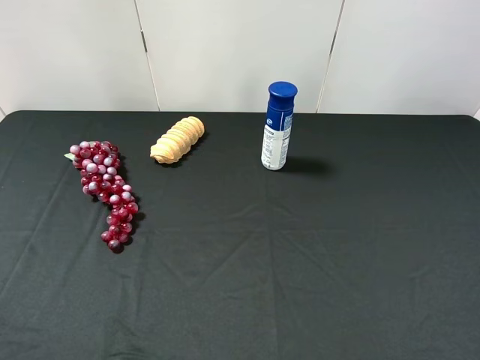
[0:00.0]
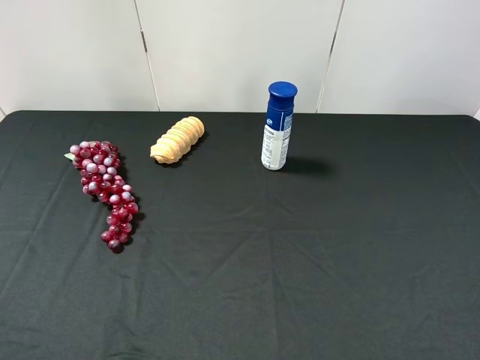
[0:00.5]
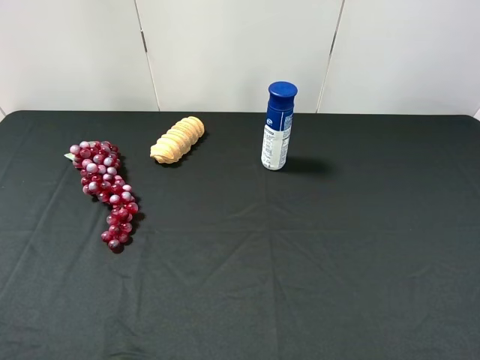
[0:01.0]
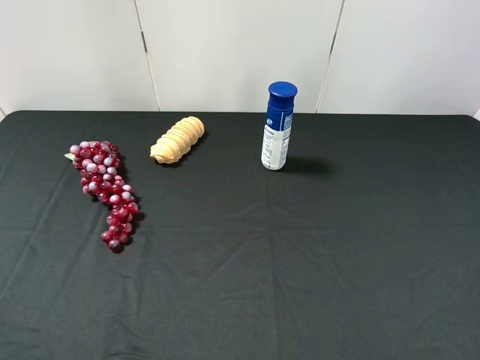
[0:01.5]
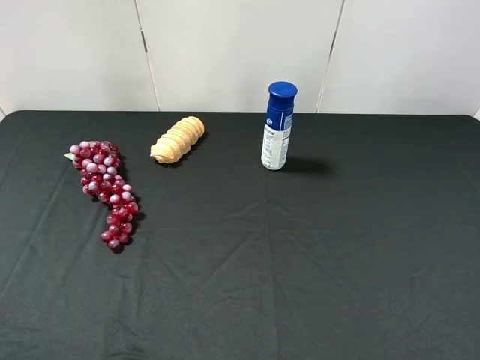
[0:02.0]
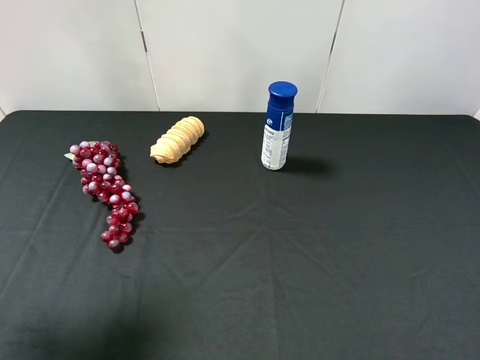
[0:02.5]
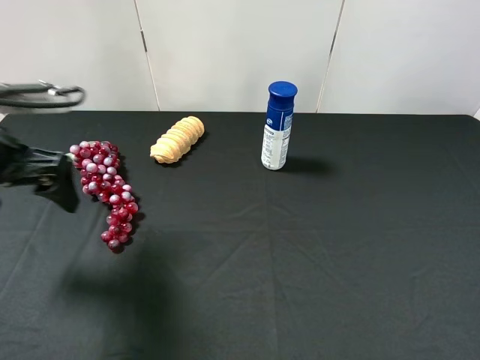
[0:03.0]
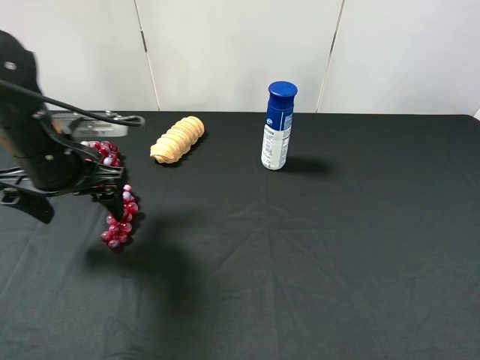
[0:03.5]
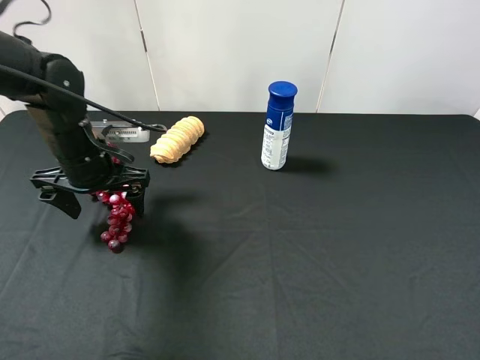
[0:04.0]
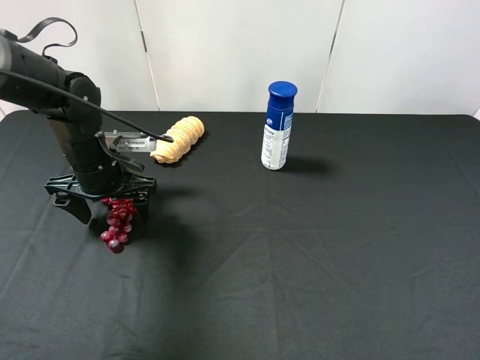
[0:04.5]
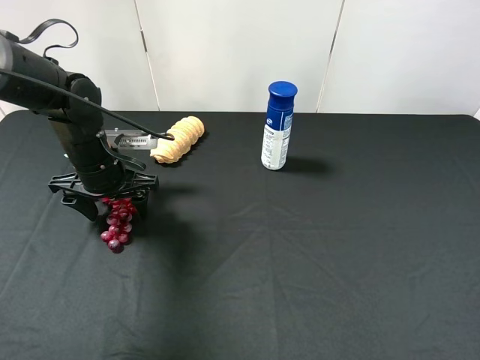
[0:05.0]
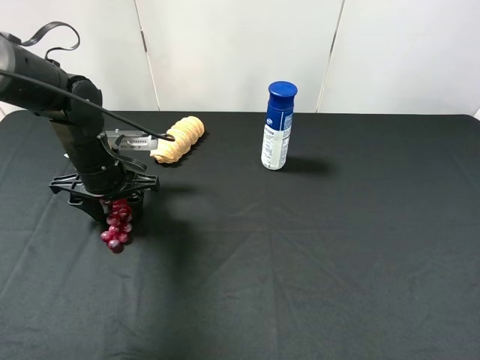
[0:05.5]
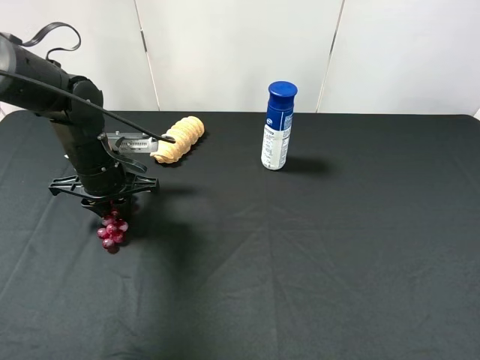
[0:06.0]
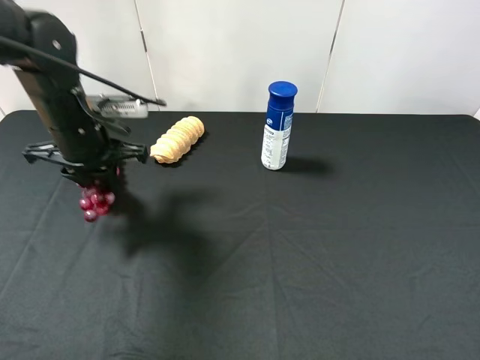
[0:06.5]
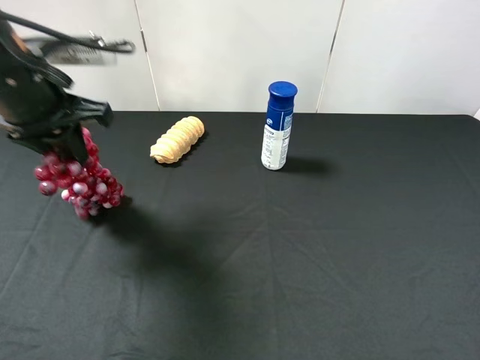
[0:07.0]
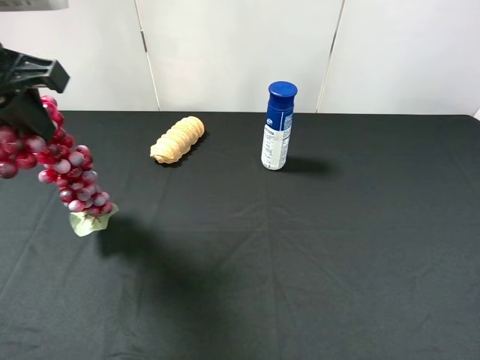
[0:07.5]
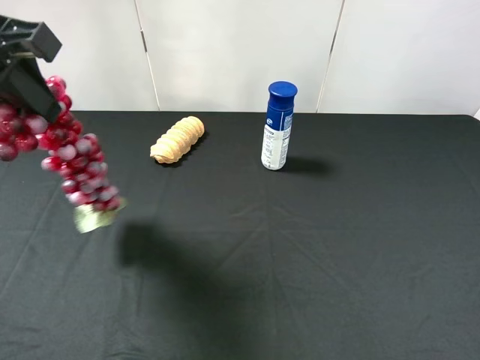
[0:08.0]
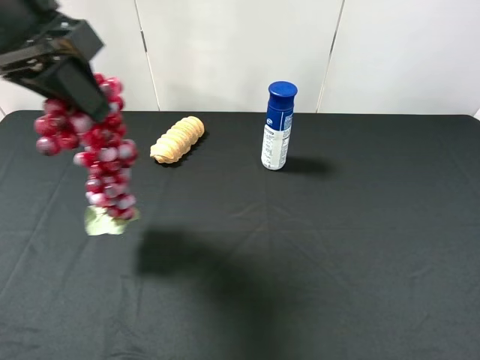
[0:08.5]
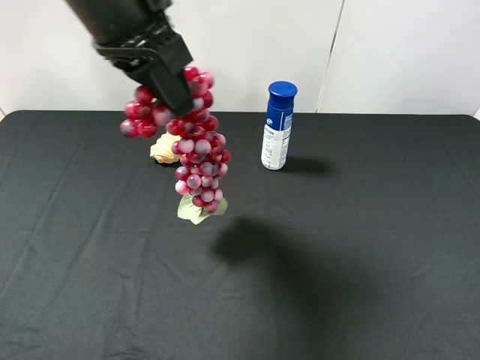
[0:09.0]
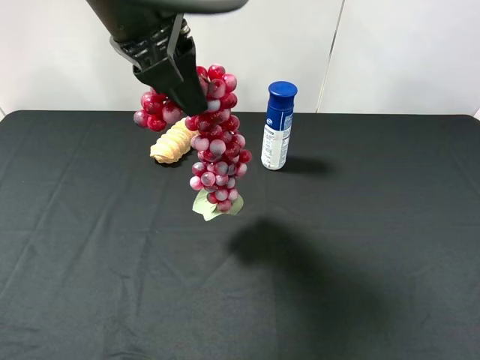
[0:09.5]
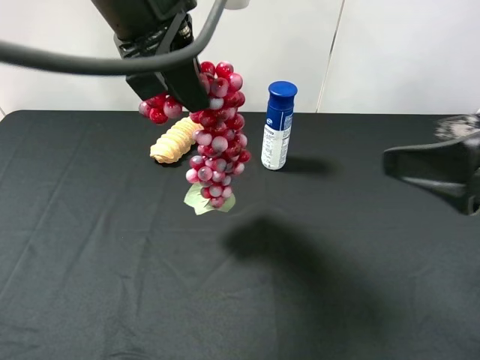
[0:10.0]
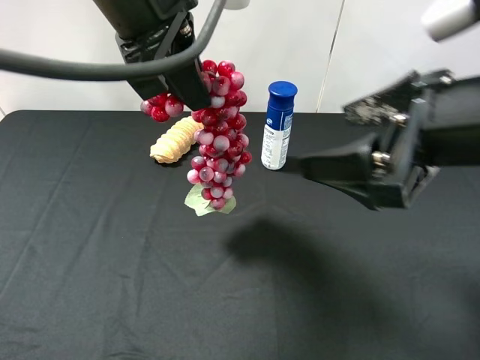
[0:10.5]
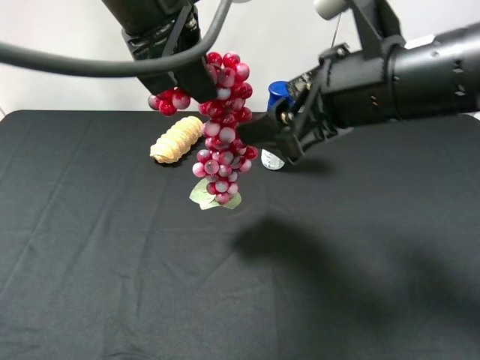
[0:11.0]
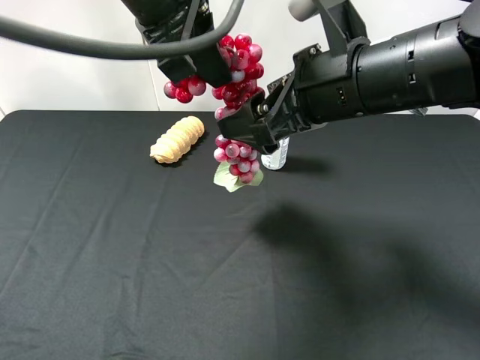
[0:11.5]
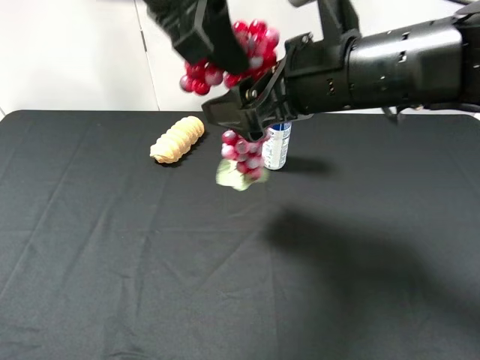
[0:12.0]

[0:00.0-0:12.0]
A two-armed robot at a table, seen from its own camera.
Task of the whole recording: use the left gripper to pick up the item and transfer it from the left gripper to the right gripper.
0:02.0 to 0:04.0: The left gripper moves forward, downward and to the right, approximately 35 cm.
0:04.0 to 0:06.0: The left gripper closes its fingers.
0:06.0 to 0:08.0: The left gripper moves upward, roughly 25 cm.
0:08.0 to 0:10.0: The left gripper shifts roughly 15 cm to the right, while the right gripper shifts roughly 15 cm forward and to the left.
0:10.0 to 0:12.0: The right gripper heads to the left and forward, covering roughly 20 cm.

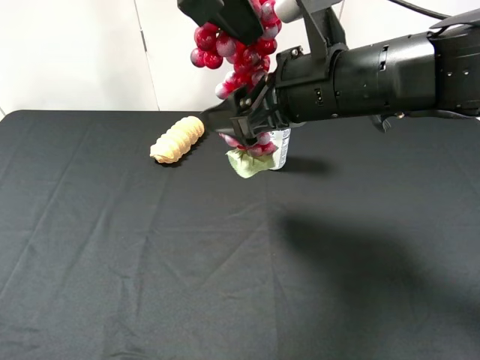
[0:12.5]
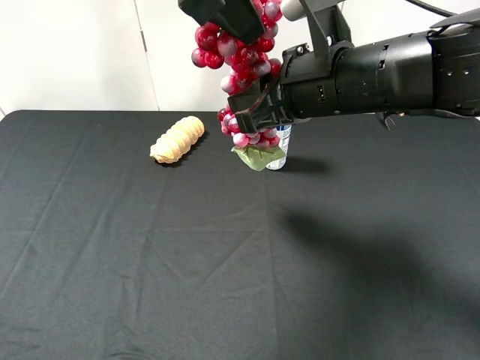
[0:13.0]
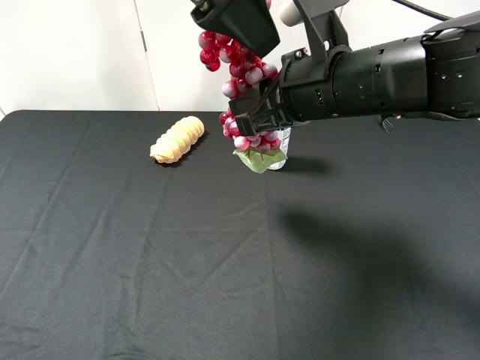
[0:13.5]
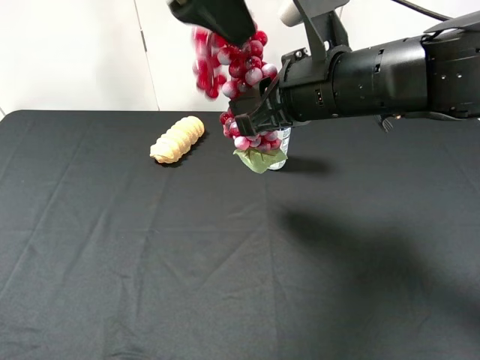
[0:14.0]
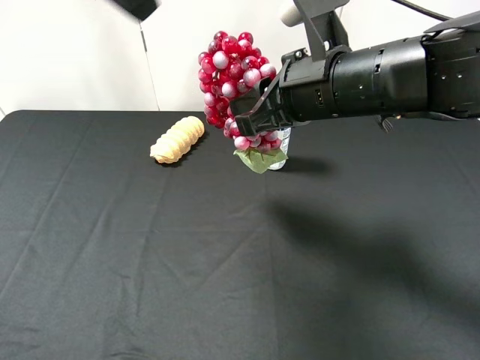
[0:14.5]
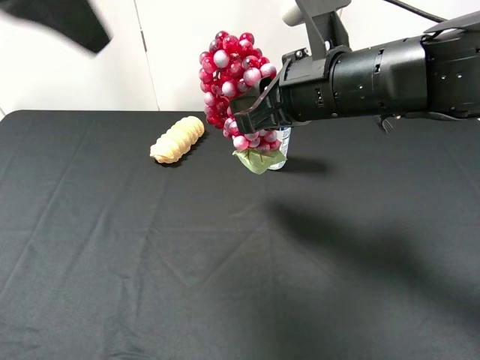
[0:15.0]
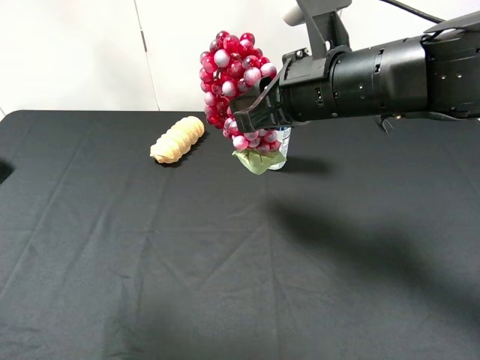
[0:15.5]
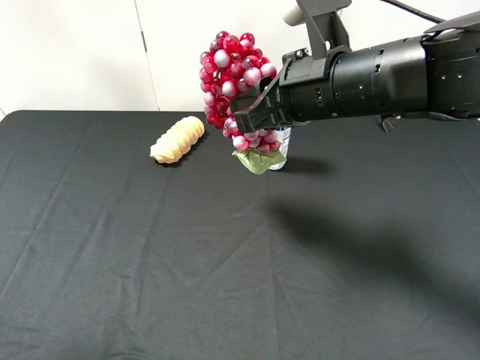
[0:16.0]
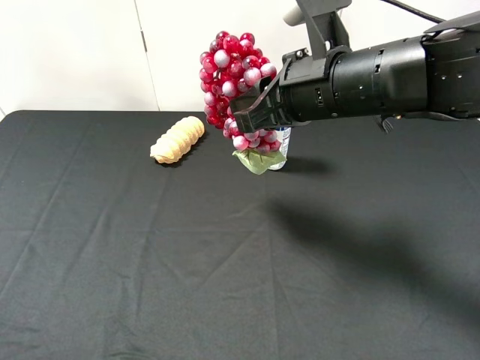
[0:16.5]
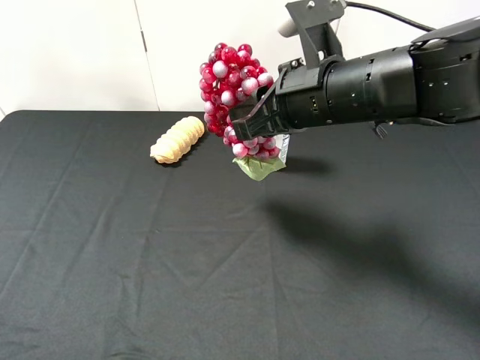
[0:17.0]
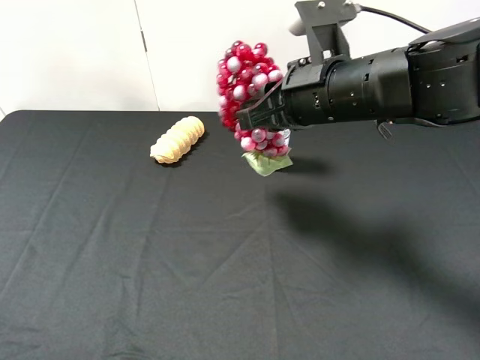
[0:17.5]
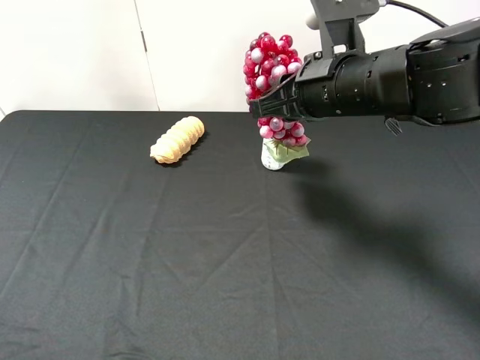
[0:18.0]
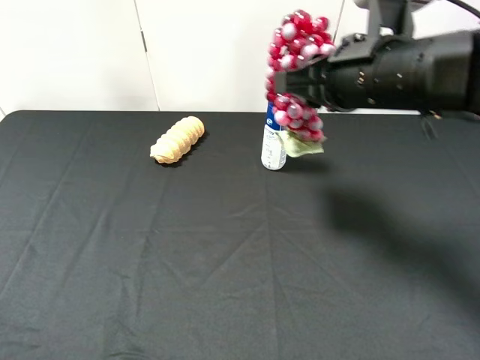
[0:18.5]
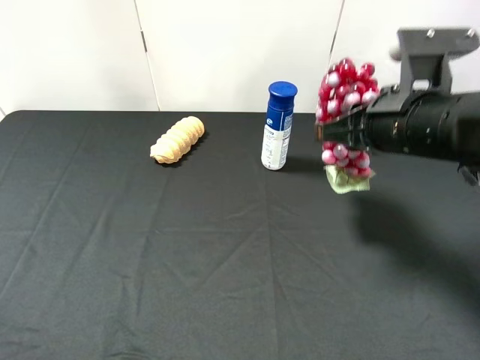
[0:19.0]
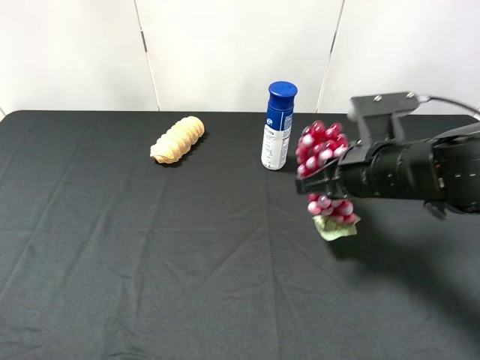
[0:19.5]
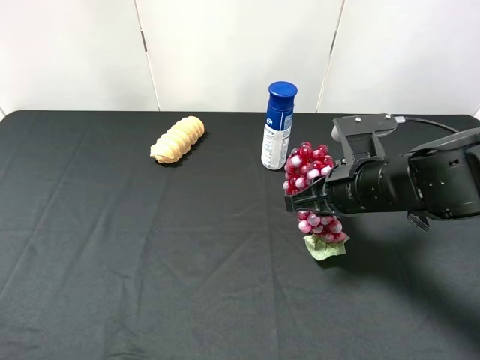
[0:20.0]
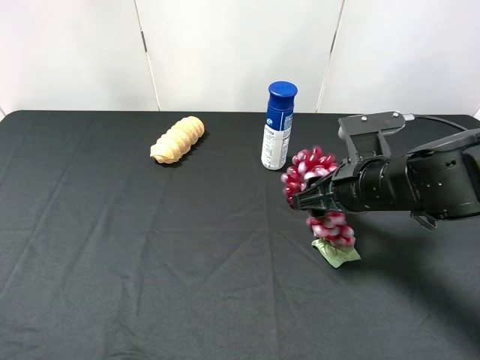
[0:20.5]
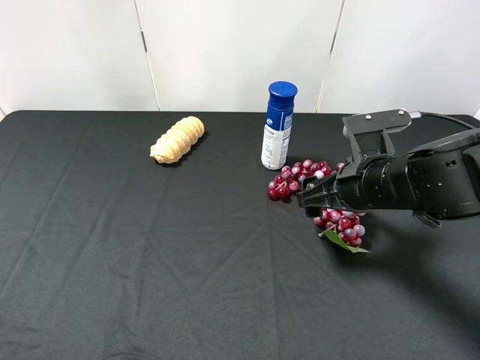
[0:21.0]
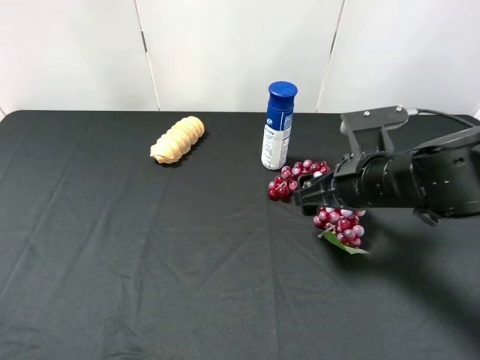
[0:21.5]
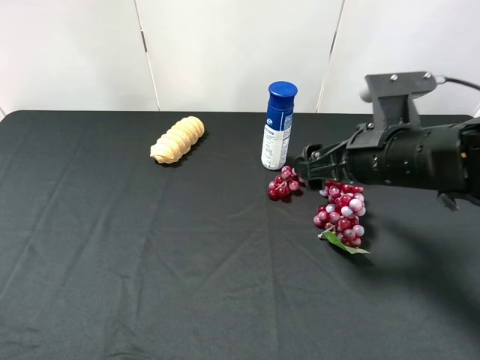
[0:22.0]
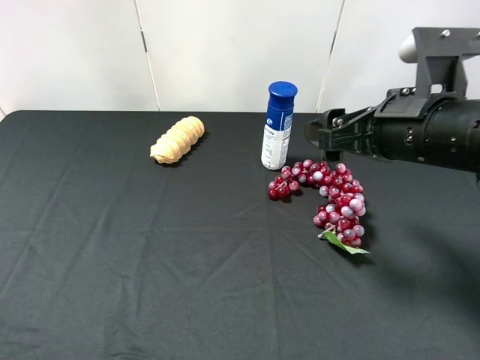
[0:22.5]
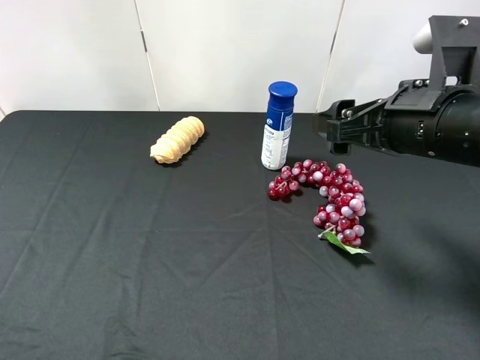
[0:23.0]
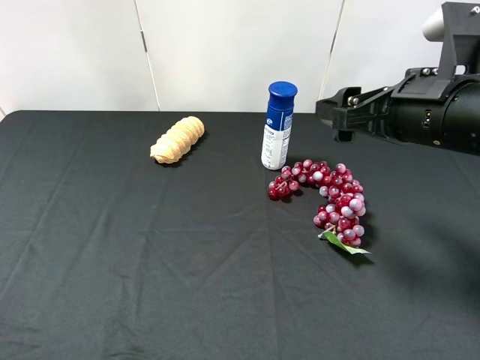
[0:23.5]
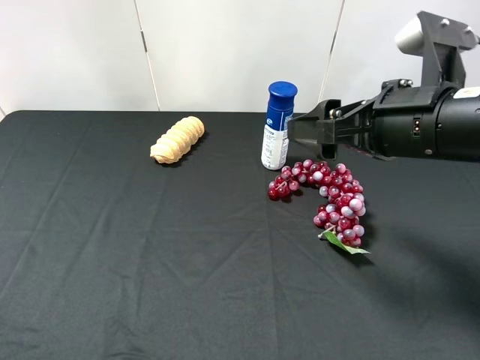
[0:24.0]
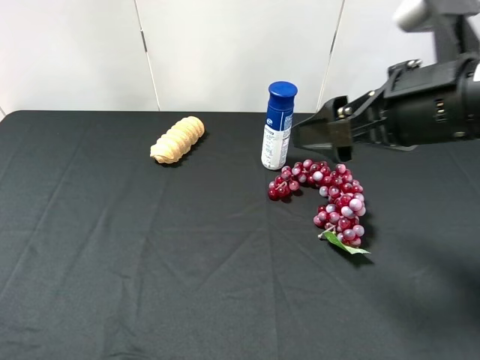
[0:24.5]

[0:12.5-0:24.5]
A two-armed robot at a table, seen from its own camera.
Task of the whole recording: use the left gripper to pick up the item and transfer it from the left gripper to the right gripper.
0:12.5 to 0:14.5: The left gripper heads to the left and upward, covering roughly 10 cm, and opens its fingers; the right gripper closes up.
0:14.5 to 0:16.5: The left gripper heads backward, to the left and downward, covering roughly 30 cm.
0:18.5 to 0:20.5: The right gripper goes some 10 cm downward, and opens up.
0:20.5 to 0:22.5: The right gripper is displaced upward by approximately 10 cm.
0:22.5 to 0:24.5: The right gripper ends up about 5 cm from where it was.

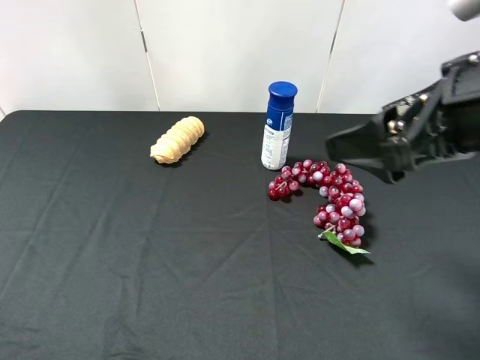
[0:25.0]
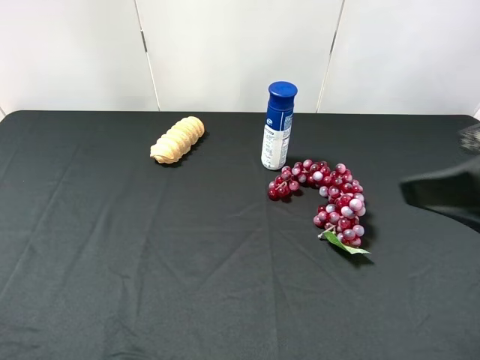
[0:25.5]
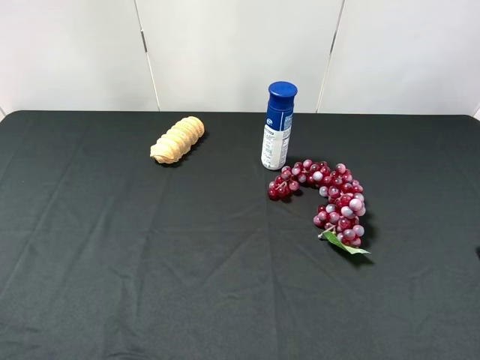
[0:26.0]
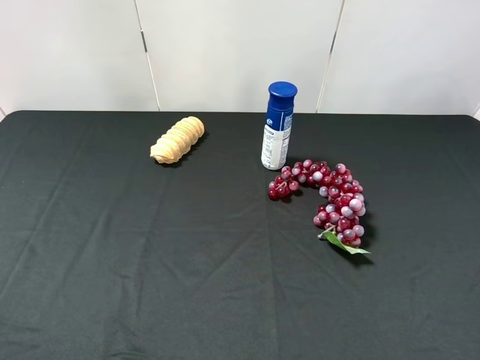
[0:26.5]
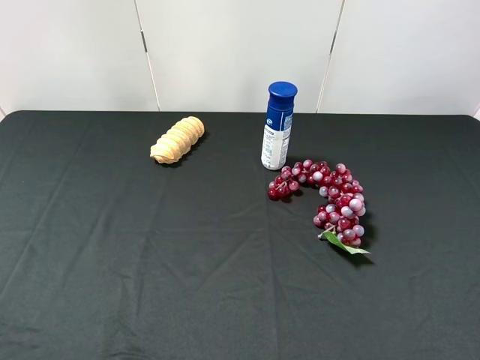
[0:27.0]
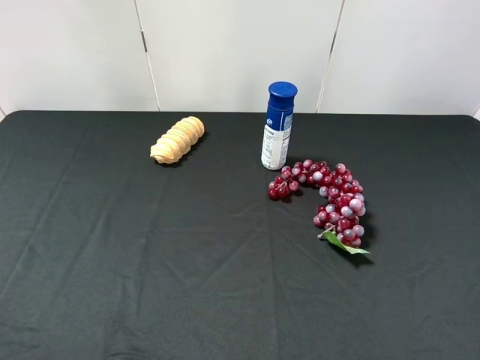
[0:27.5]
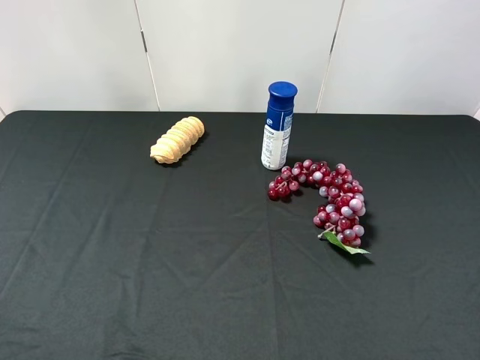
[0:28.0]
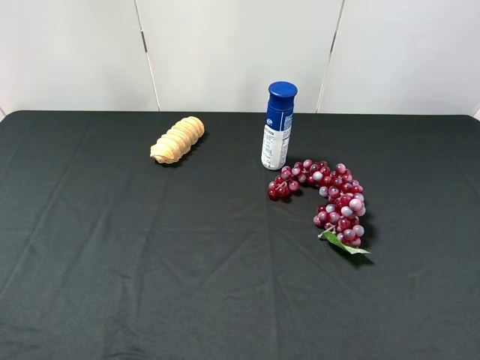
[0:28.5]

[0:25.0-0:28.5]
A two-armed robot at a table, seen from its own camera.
Task of the whole recording: use the left gripper to pick up the item and transfer it from the left gripper to the right gripper.
0:25.0 to 0:27.0: The right gripper shifts about 20 cm backward and to the right.
